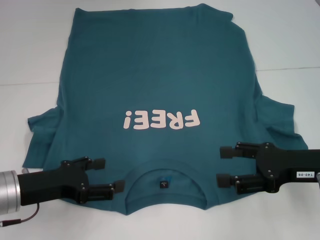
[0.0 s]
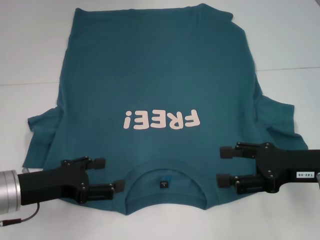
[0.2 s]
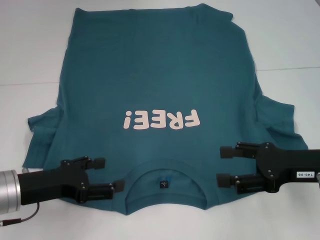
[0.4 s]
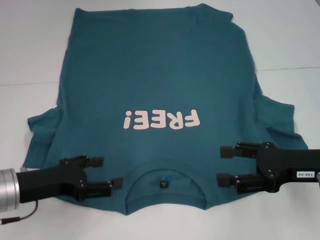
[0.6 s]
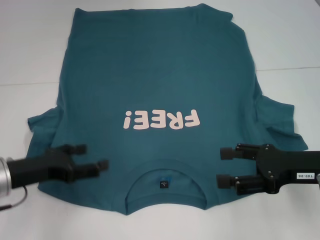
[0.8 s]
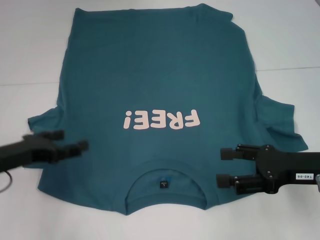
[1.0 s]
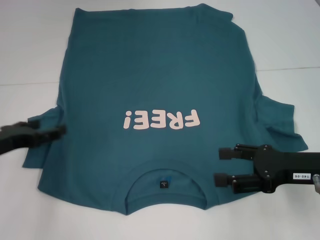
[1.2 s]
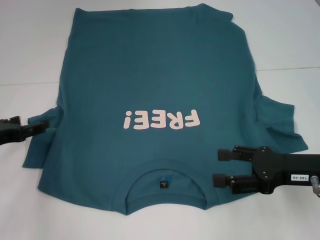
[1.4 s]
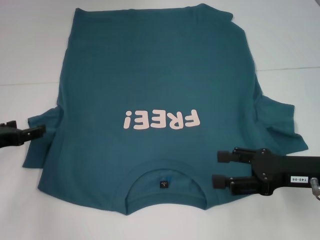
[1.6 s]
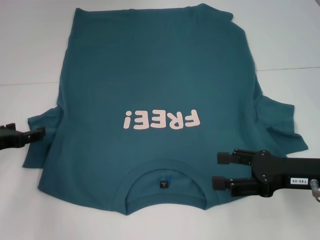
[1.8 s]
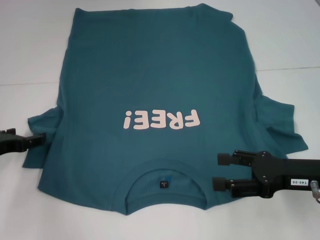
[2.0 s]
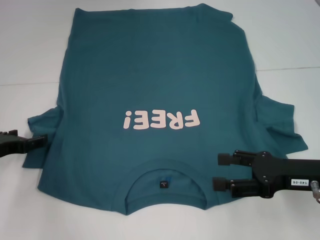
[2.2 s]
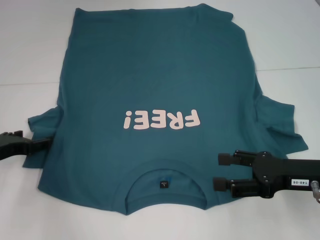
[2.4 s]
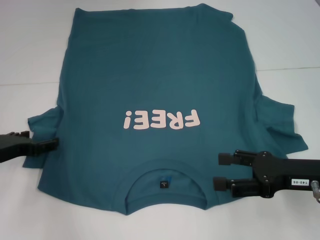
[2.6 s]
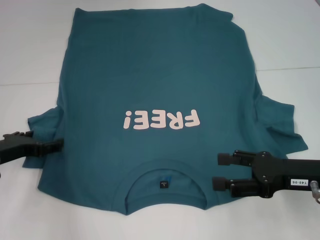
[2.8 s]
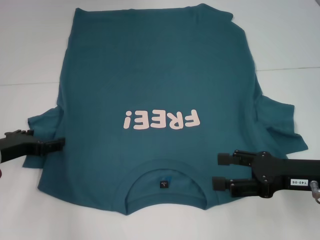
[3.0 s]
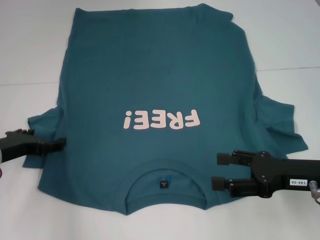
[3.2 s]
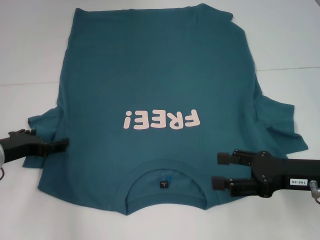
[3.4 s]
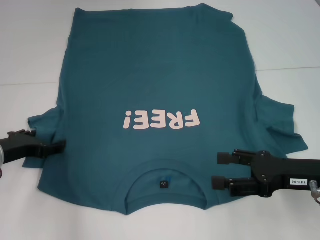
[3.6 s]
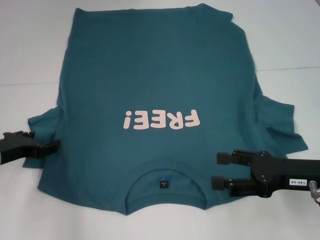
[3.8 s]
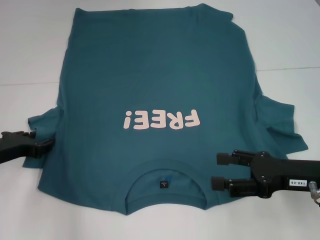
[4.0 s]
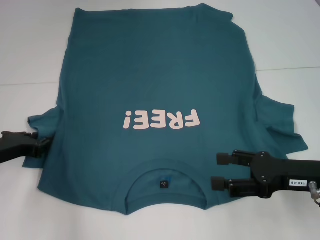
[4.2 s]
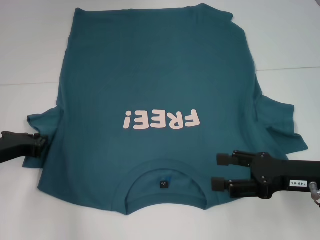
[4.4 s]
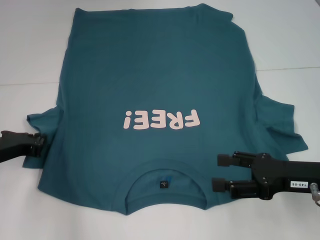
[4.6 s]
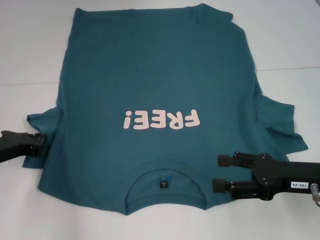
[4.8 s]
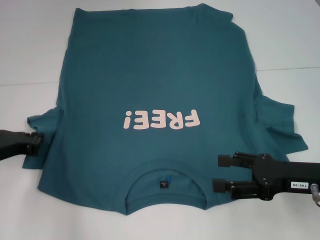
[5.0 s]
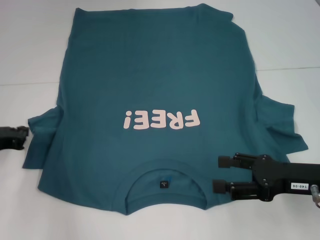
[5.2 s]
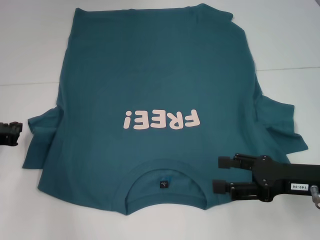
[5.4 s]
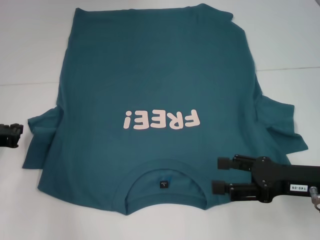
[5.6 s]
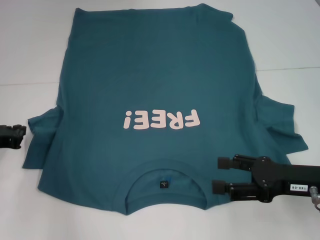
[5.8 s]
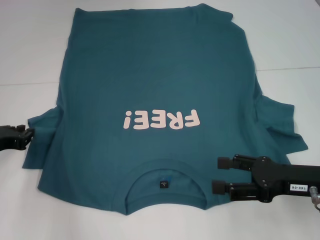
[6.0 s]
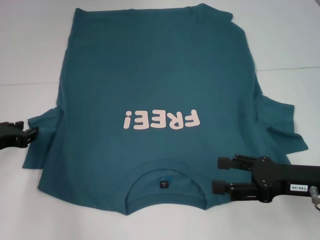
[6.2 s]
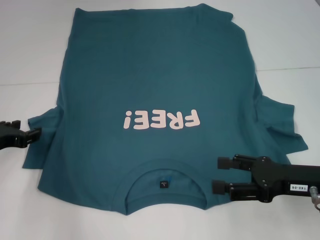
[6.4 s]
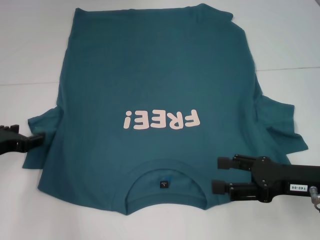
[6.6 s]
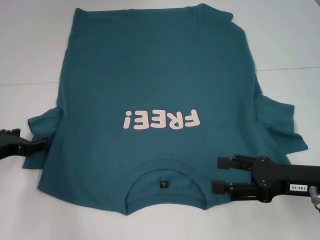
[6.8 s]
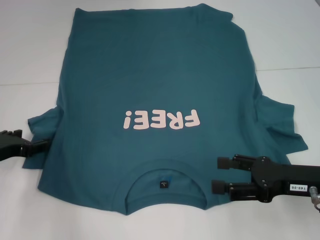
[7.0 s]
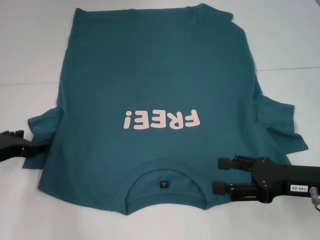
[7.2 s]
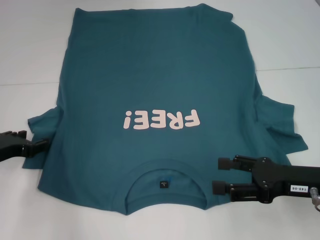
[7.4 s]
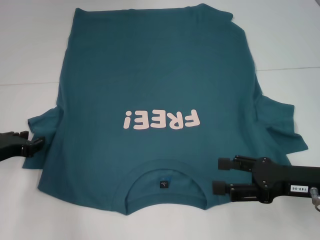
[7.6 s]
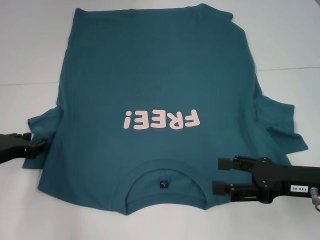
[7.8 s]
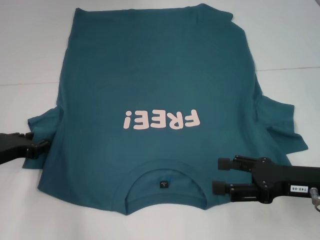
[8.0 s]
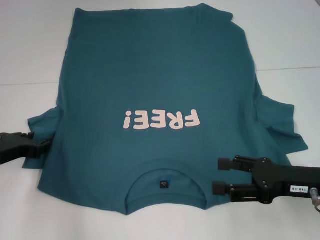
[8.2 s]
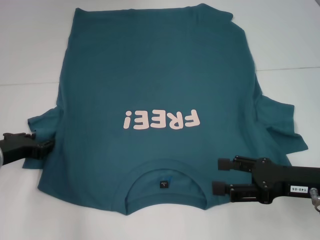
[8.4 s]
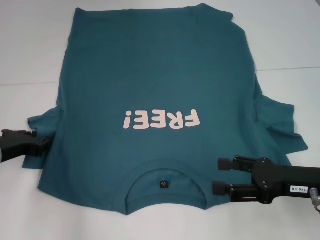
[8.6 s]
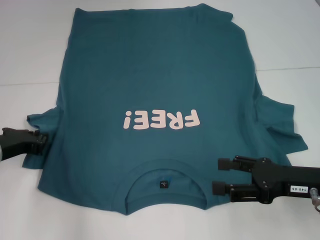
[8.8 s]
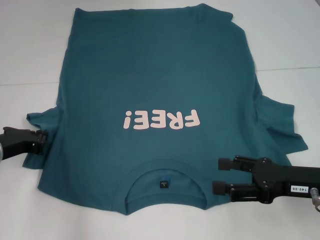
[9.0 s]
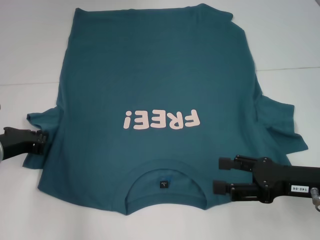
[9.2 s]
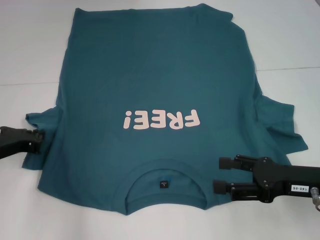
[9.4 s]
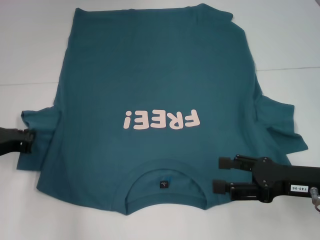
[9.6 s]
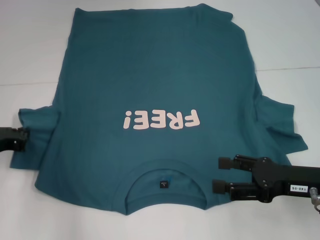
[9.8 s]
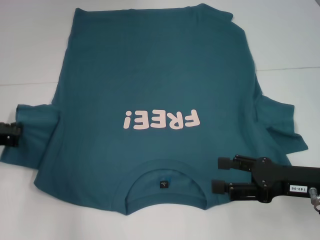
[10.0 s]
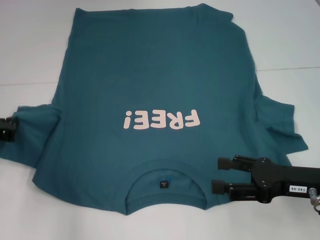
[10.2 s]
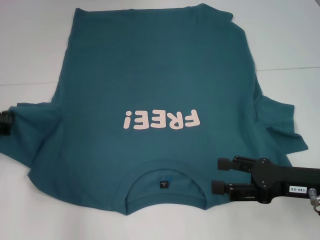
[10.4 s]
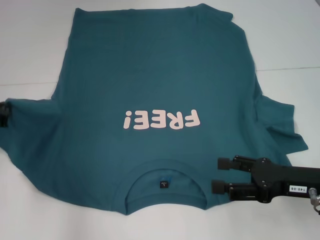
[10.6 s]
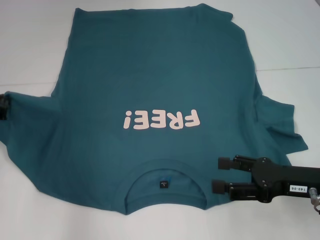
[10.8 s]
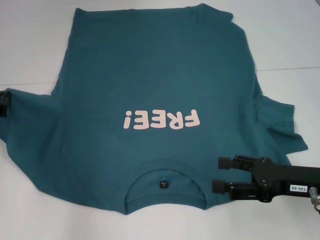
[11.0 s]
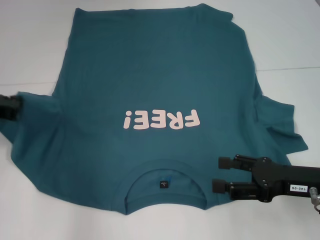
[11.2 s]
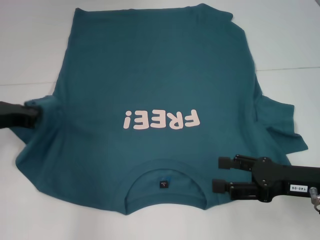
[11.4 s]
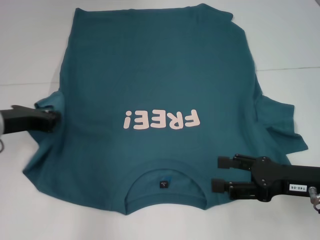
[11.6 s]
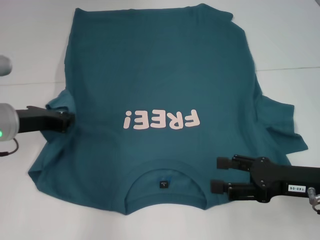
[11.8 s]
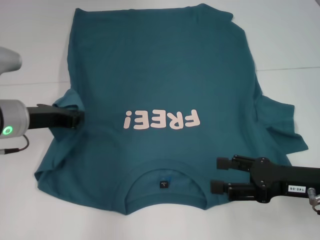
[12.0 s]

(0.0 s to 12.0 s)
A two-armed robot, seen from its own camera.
0.0 s - 1.6 s: The left gripper shifts approximately 10 cm to the left and forward.
1.6 s - 3.0 s: There are only small adjustments of the grippers.
3.0 s - 4.4 s: The left gripper closes its fingers.
4.4 s - 6.0 s: There are only small adjustments of the grippers.
6.0 s - 7.6 s: The left gripper opens up.
7.6 s - 9.0 s: The left gripper closes up.
9.0 s - 10.4 s: The left gripper shifts by about 5 cm.
10.4 s - 12.0 s: The left gripper heads to the right, covering some 10 cm.

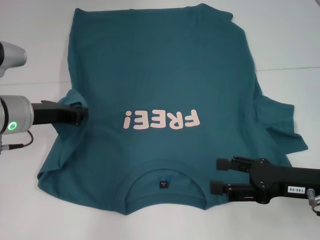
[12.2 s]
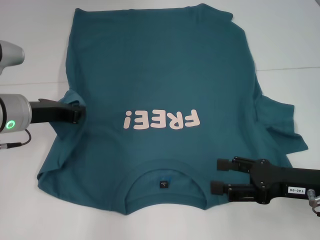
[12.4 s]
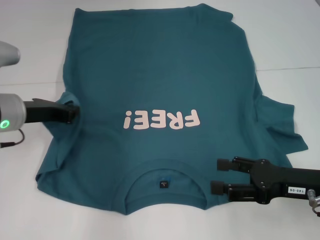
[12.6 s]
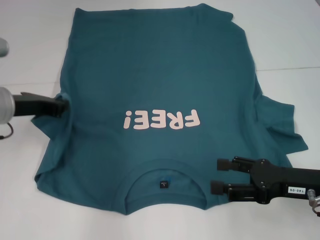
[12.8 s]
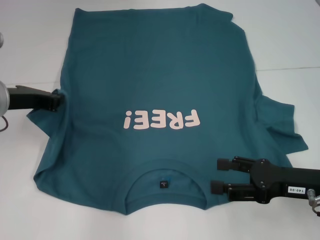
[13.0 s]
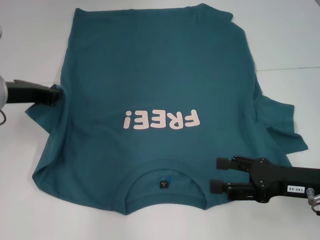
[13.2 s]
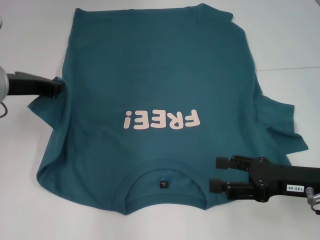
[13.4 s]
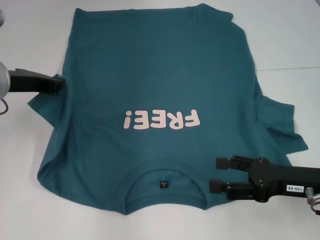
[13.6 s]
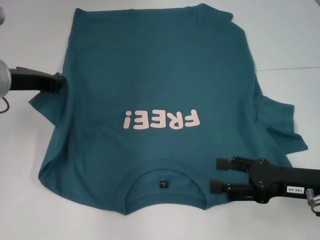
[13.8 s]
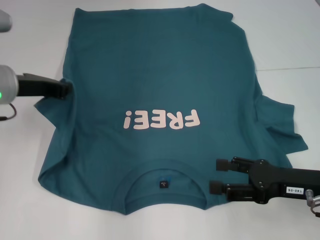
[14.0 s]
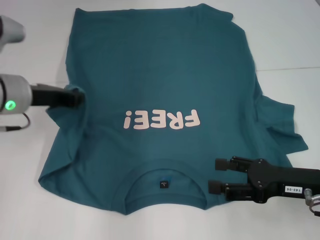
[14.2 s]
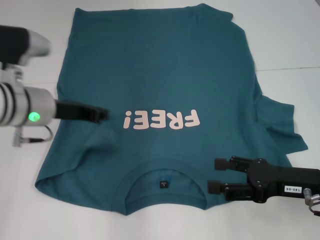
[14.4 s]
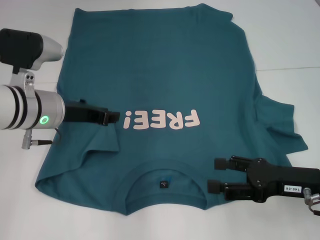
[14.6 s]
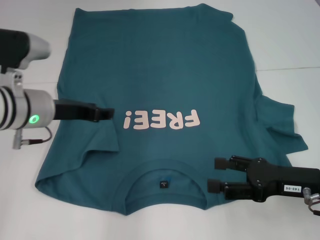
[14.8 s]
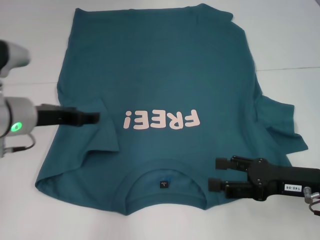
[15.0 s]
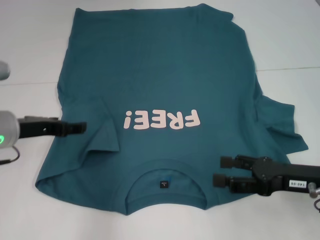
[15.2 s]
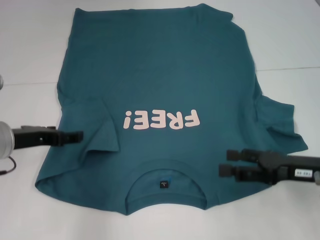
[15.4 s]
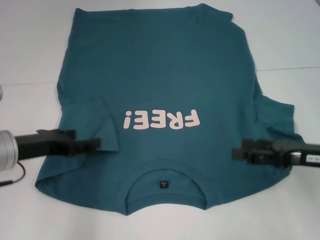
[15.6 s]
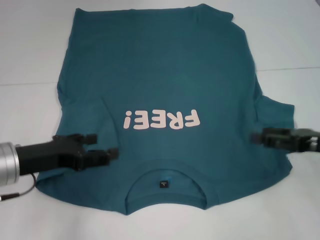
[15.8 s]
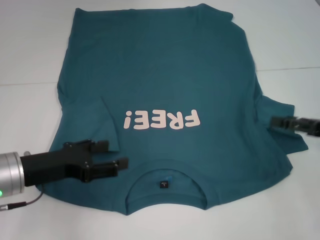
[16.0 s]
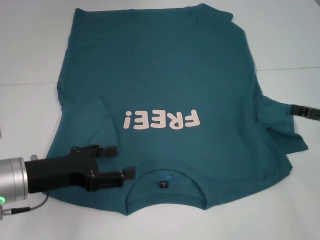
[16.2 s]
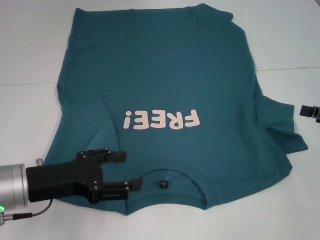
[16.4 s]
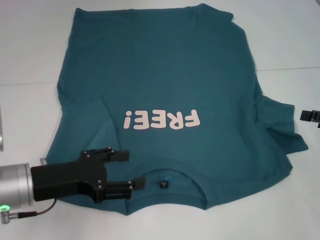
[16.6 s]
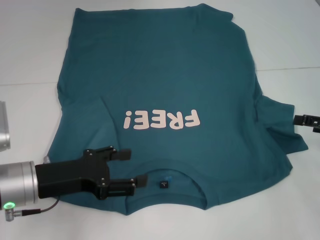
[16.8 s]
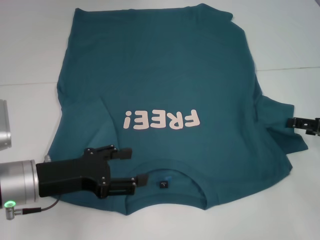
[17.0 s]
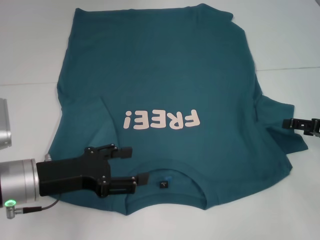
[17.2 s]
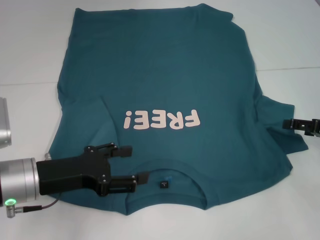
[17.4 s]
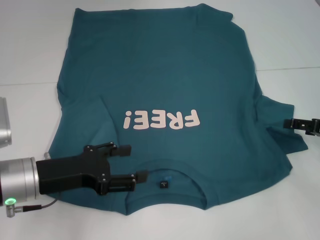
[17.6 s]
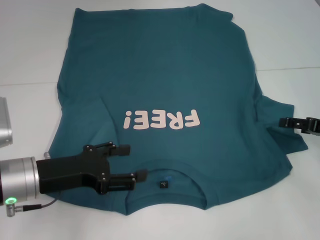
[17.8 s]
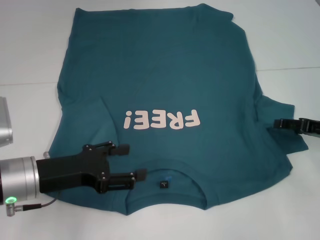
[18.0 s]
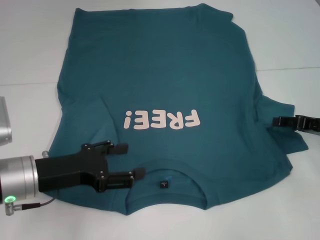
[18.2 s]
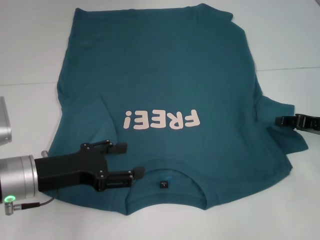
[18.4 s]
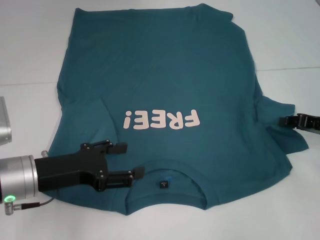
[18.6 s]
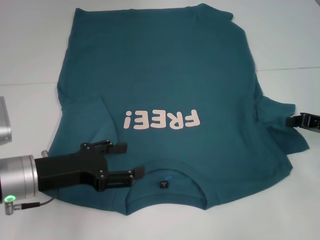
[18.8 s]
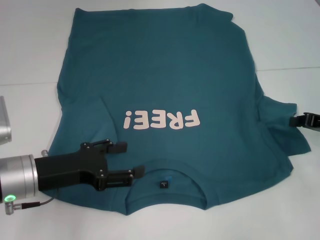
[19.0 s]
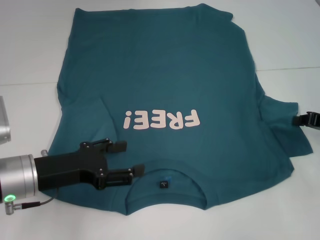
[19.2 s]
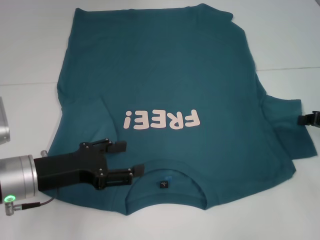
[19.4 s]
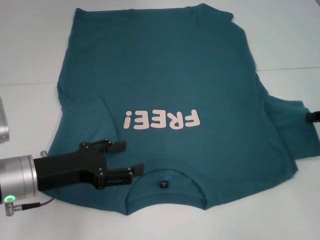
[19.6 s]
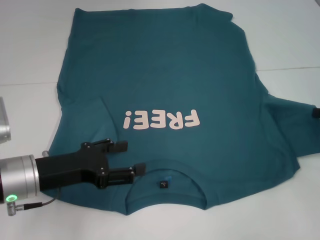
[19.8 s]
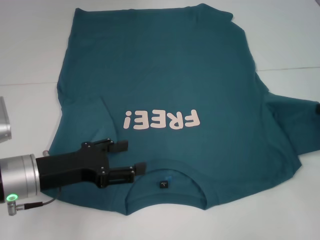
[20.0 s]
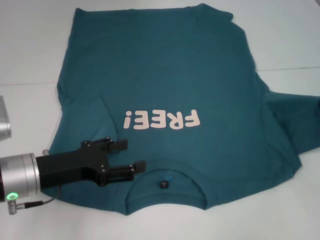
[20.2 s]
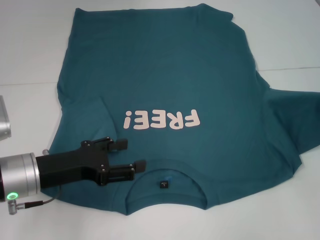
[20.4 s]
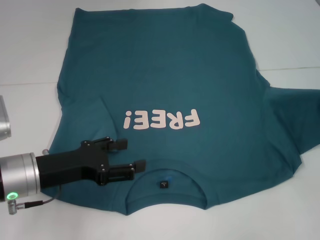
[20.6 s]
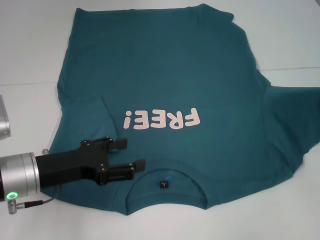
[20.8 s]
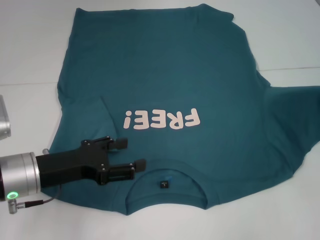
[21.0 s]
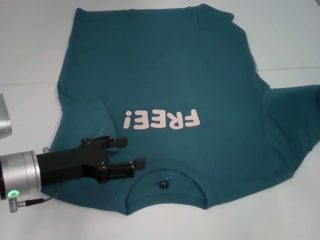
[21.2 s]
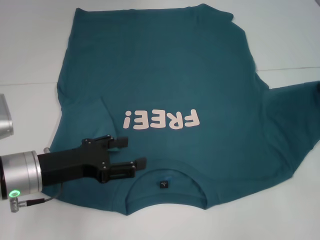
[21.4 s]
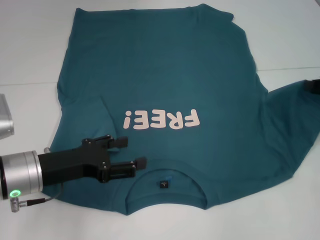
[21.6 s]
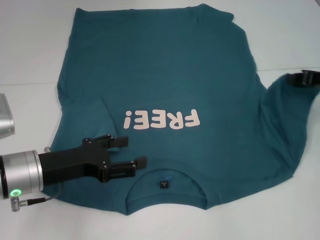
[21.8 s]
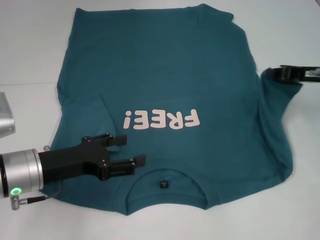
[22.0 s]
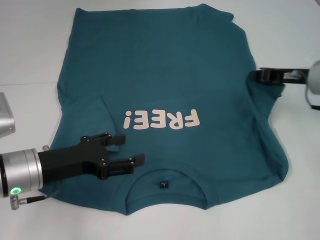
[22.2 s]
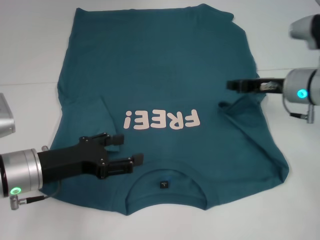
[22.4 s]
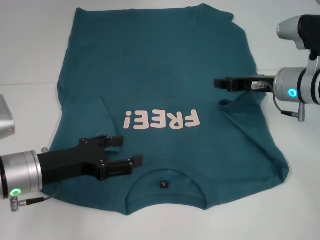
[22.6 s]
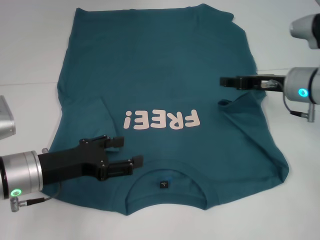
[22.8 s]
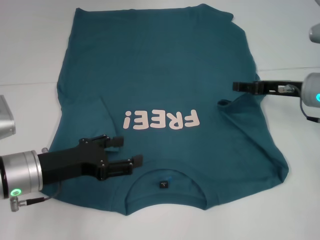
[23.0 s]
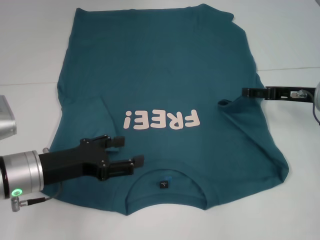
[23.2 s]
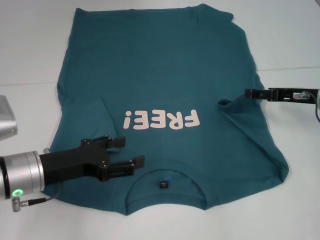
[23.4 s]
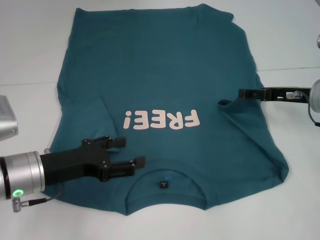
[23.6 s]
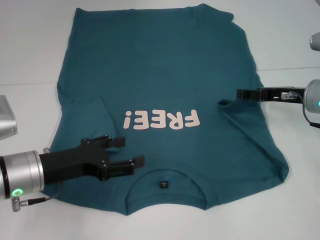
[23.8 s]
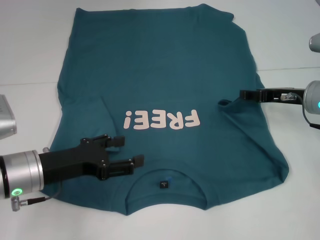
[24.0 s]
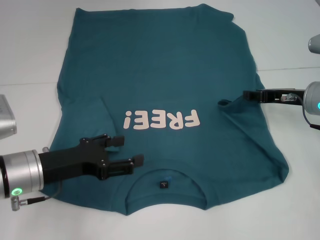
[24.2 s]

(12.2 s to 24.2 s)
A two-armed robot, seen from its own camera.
Step, 12.2 s - 15.0 s: Fold the bottom left sleeve with your left hand.
12.2 s - 13.8 s: The left gripper shifts some 5 cm upward.
13.8 s - 15.2 s: The left gripper moves downward, approximately 5 cm, and opens up.
15.2 s - 16.6 s: The right gripper travels to the right by some 10 cm. The left gripper goes about 10 cm backward.
16.6 s - 18.2 s: The right gripper shifts by some 5 cm.
18.2 s - 19.8 s: The right gripper changes place by approximately 5 cm, and closes.
19.8 s - 21.2 s: There are only small adjustments of the grippers.
21.2 s - 22.6 s: The right gripper is displaced to the left by approximately 15 cm.
22.6 s - 24.2 s: The right gripper moves approximately 5 cm, and opens its fingers.
